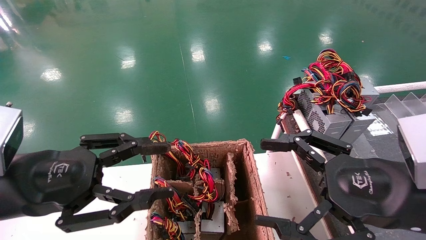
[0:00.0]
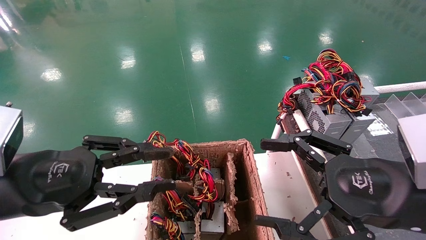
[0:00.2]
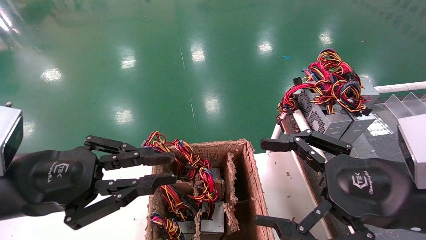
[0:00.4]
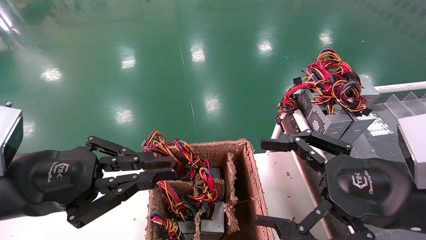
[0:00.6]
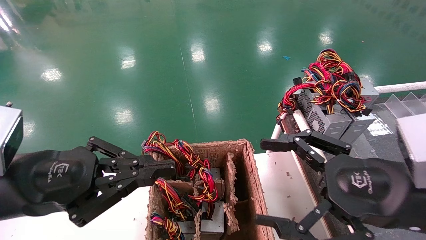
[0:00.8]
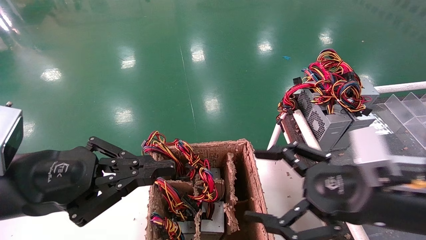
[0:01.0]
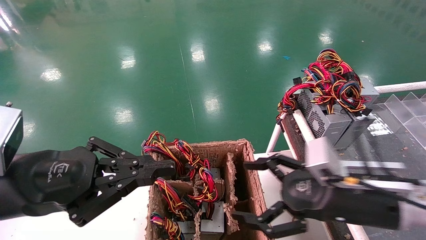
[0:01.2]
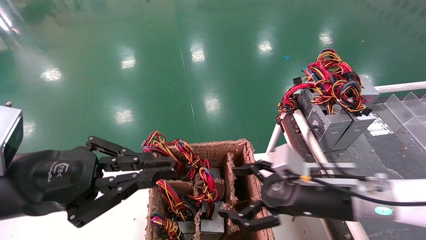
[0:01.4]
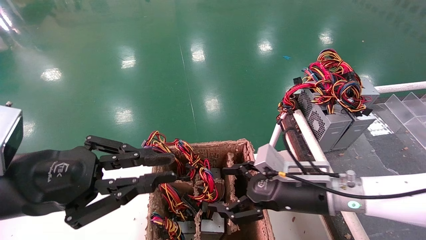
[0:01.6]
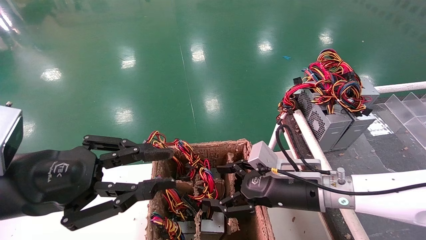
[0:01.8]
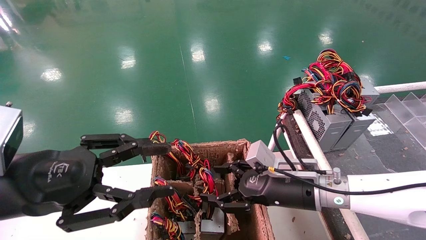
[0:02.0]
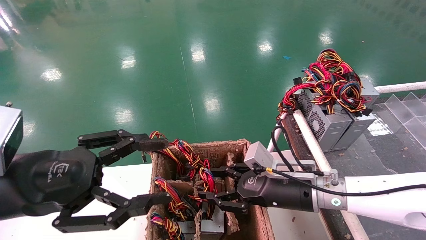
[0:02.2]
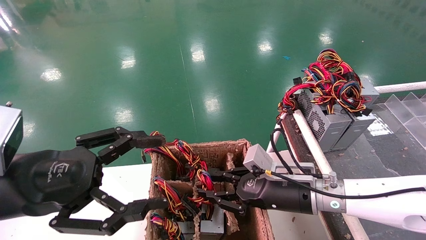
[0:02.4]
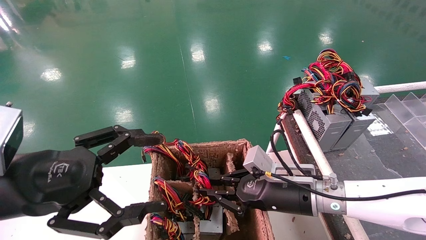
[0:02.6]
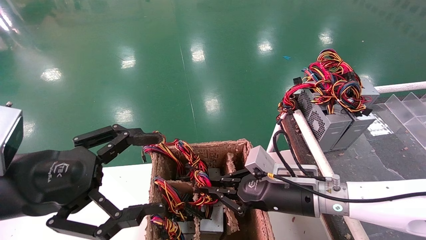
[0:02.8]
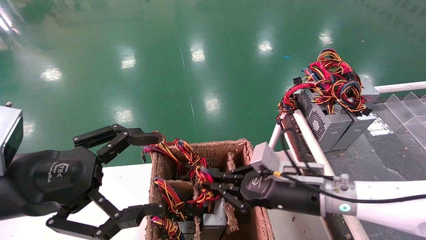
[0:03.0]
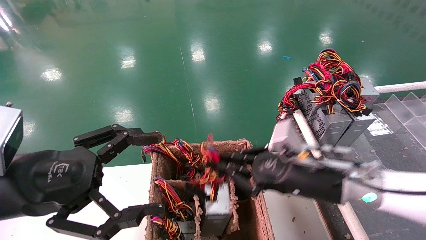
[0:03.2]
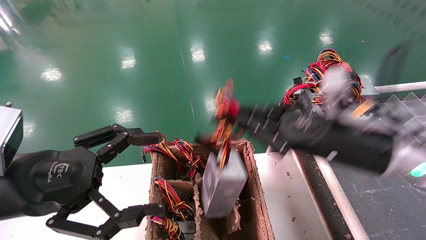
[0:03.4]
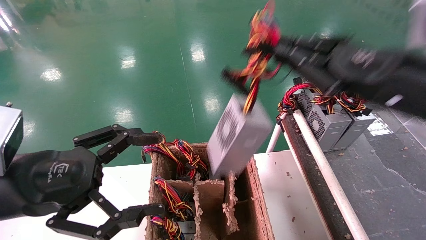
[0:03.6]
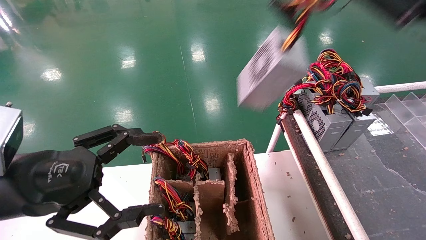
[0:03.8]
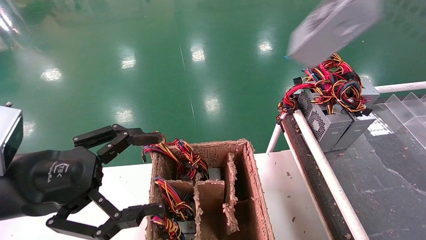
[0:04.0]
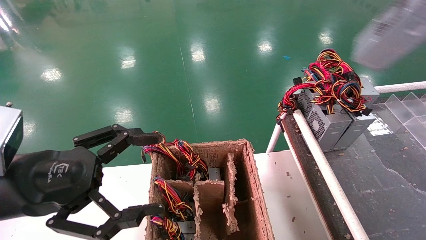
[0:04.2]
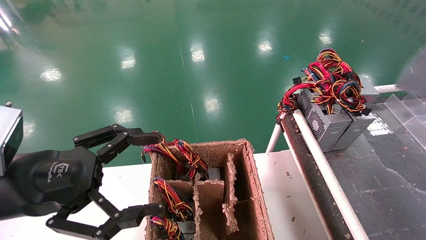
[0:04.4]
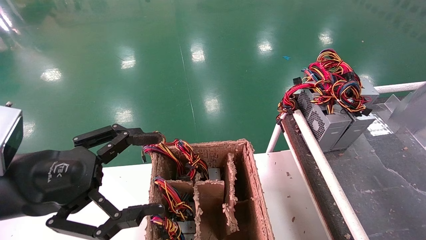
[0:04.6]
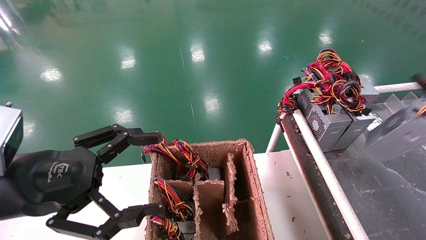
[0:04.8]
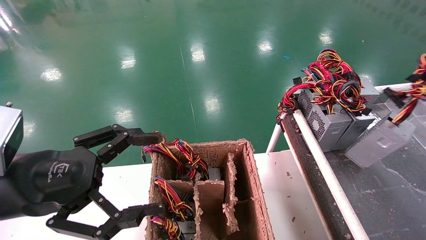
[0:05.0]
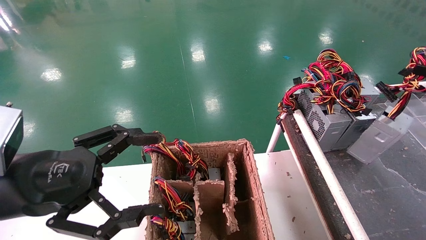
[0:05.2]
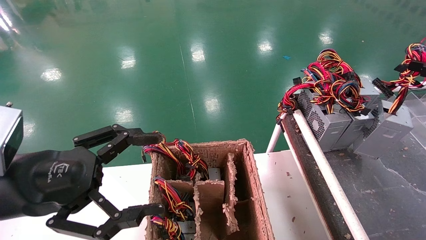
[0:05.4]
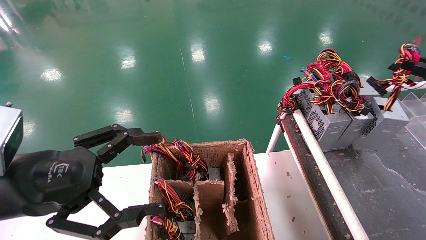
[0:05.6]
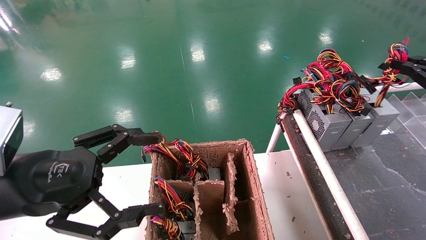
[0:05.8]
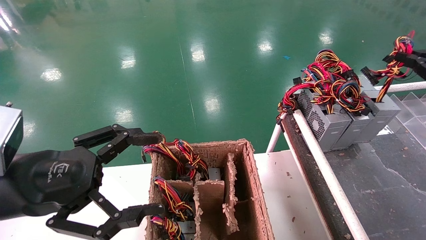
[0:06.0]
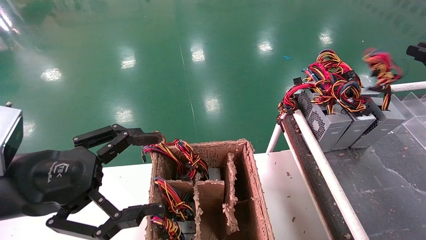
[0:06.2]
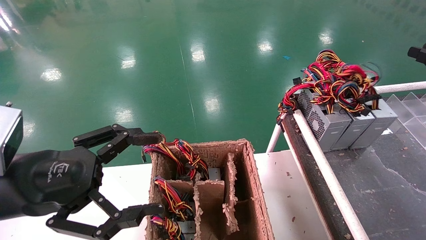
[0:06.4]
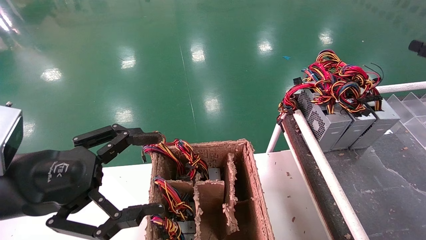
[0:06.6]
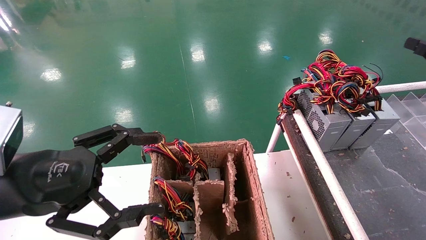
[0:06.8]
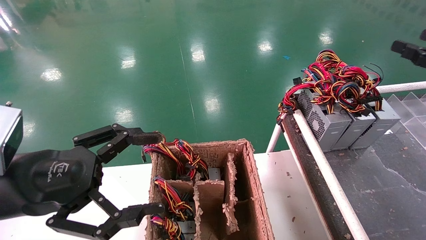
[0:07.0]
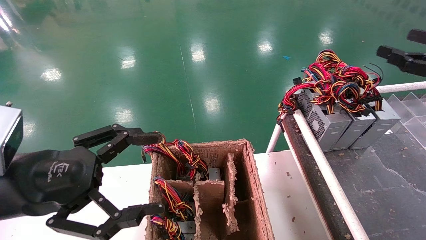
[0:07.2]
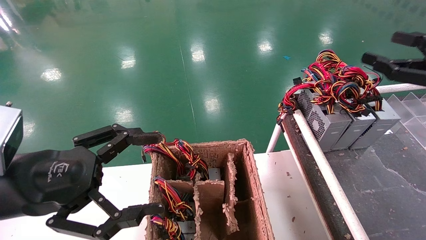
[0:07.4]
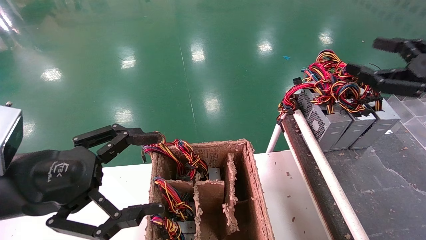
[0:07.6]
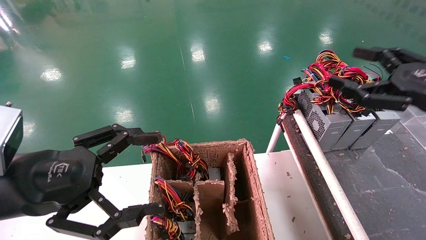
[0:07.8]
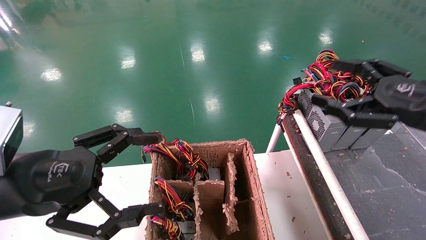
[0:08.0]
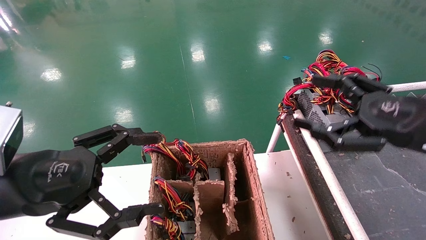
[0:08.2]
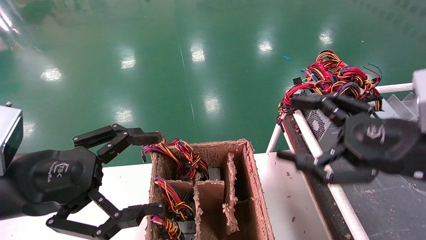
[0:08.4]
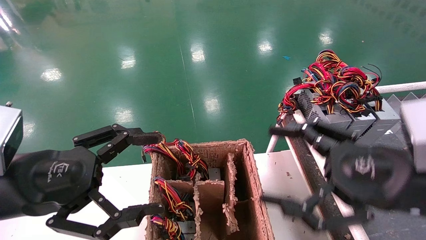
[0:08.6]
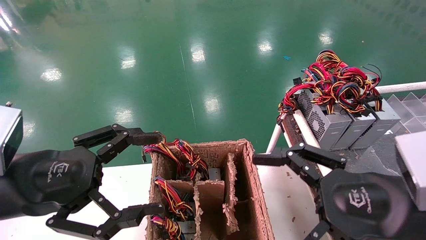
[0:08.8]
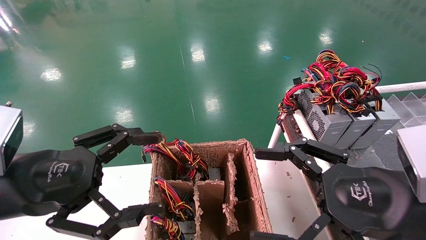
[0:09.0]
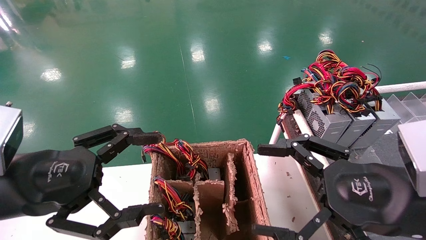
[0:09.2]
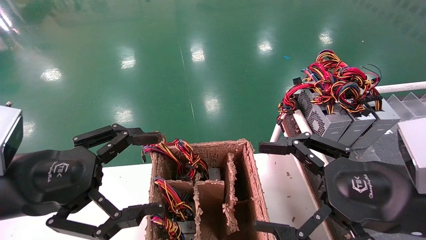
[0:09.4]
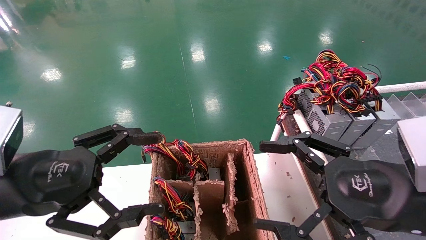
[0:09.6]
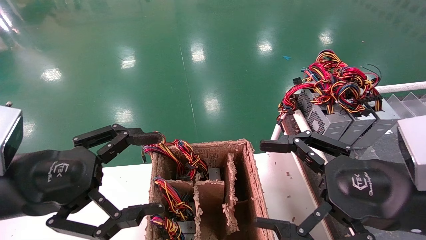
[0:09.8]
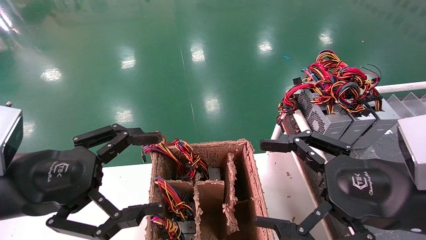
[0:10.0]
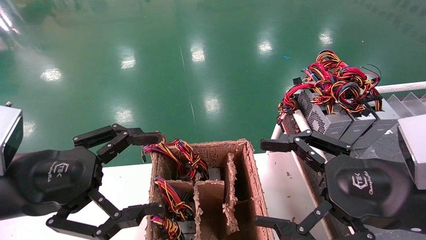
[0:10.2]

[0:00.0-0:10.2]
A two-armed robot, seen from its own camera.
Step, 0:01.2 to 0:02.6: Grab and lift the power supply from the large box.
Step, 0:02.8 to 0:06.2: Place the power supply on the operating table.
0:00.0 to 0:01.4: The right gripper shifts about 15 cm forward, downward and to the left. Meanwhile the left gripper closes.
0:01.4 to 0:03.0: The right gripper closes its fingers. Meanwhile the left gripper opens its fingers.
0:03.0 to 0:04.4: The right gripper is displaced to the right and upward by approximately 40 cm.
0:04.4 to 0:05.8: The right gripper is displaced forward and downward by some 15 cm.
0:05.8 to 0:07.2: The right gripper opens its fingers.
0:07.2 to 0:08.8: The right gripper heads to the left, backward and downward, covering about 25 cm.
0:08.8 to 0:10.2: Both grippers stay put.

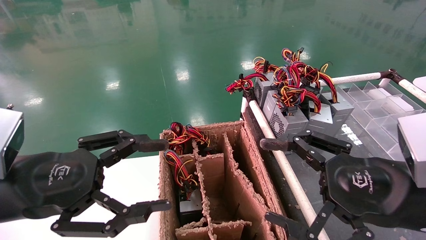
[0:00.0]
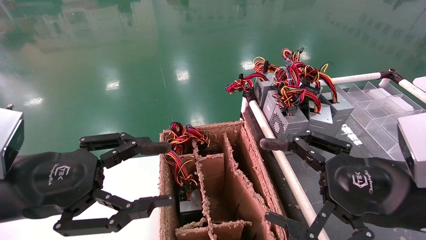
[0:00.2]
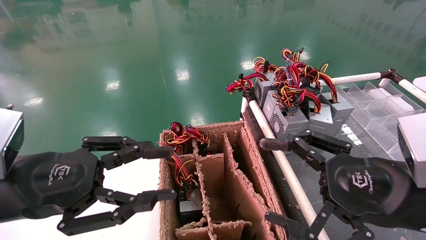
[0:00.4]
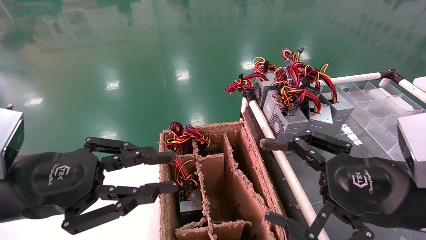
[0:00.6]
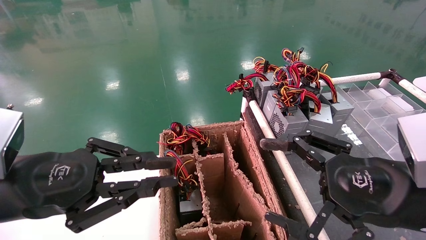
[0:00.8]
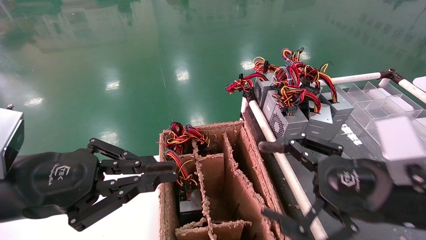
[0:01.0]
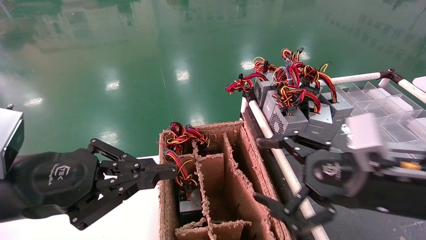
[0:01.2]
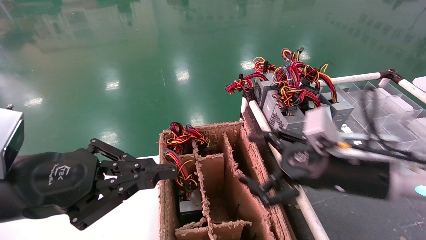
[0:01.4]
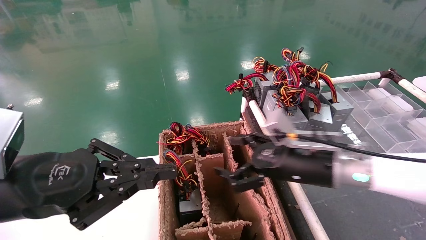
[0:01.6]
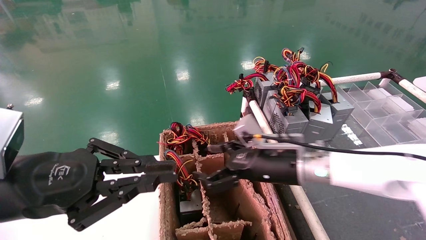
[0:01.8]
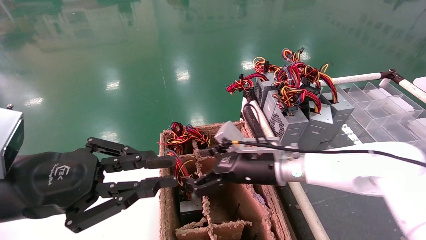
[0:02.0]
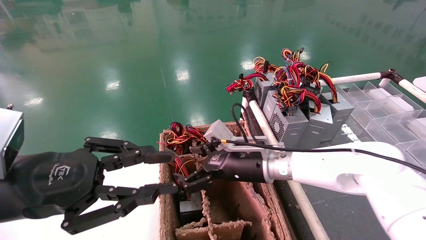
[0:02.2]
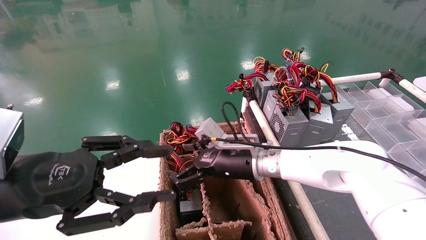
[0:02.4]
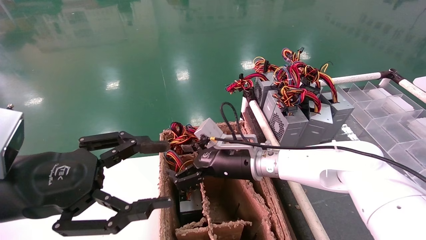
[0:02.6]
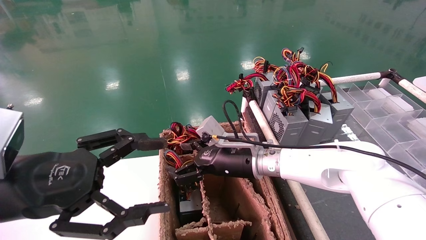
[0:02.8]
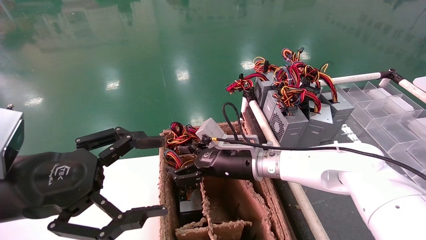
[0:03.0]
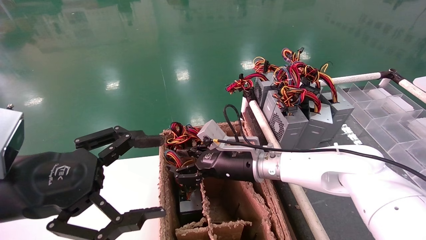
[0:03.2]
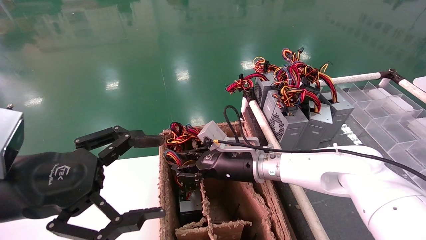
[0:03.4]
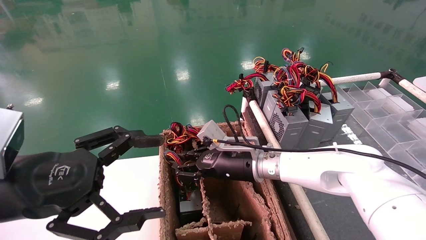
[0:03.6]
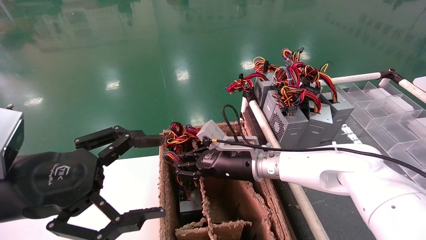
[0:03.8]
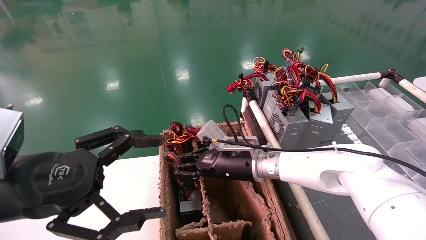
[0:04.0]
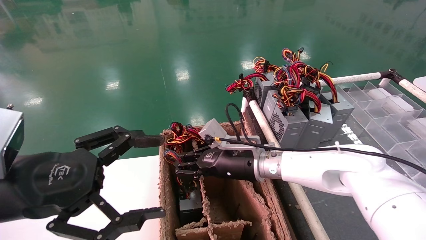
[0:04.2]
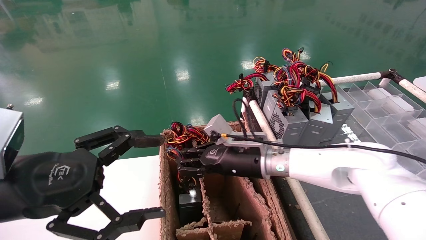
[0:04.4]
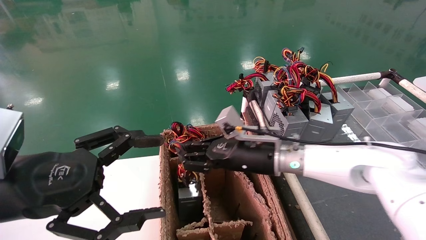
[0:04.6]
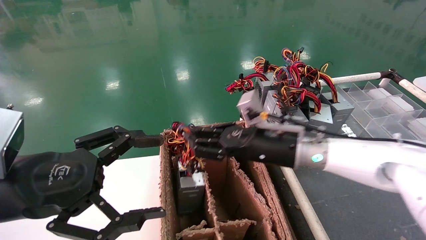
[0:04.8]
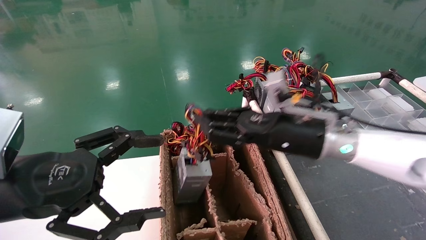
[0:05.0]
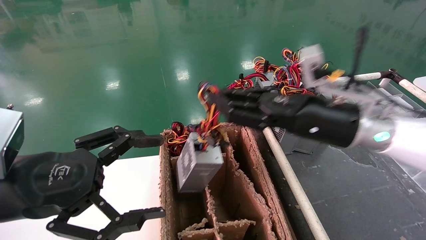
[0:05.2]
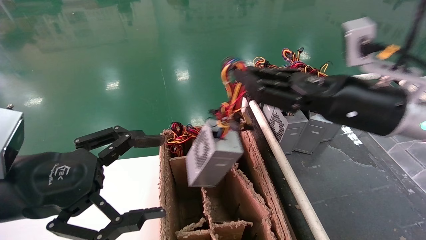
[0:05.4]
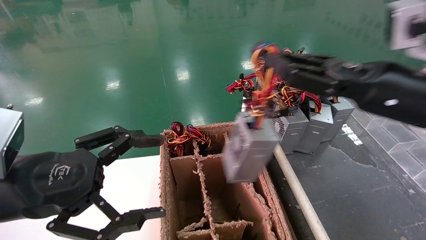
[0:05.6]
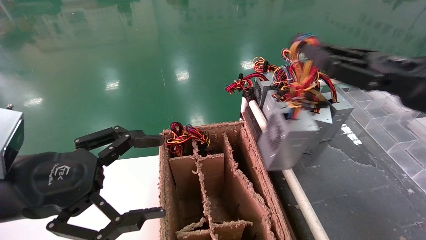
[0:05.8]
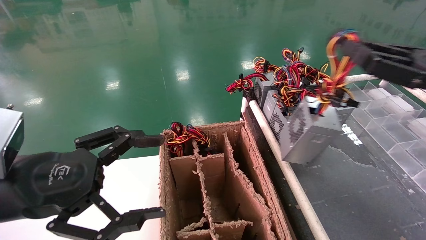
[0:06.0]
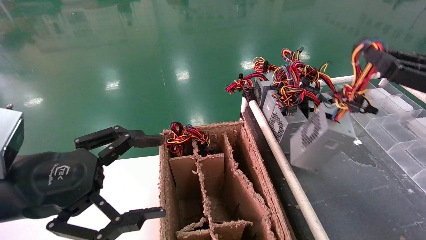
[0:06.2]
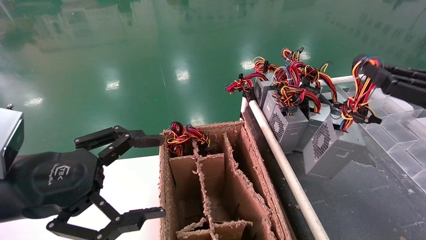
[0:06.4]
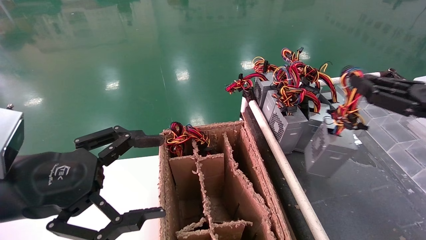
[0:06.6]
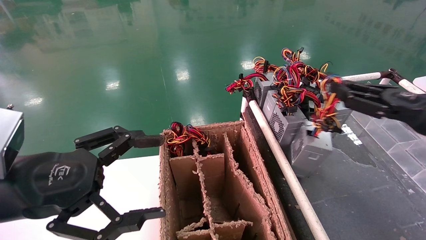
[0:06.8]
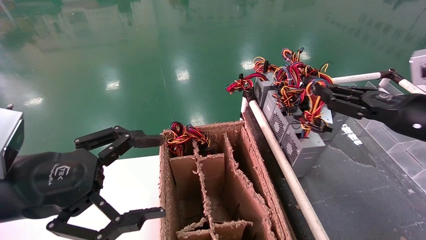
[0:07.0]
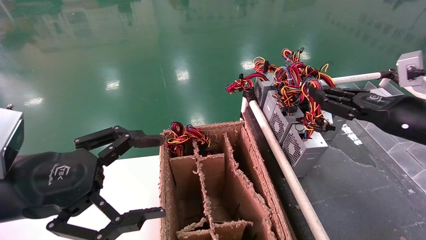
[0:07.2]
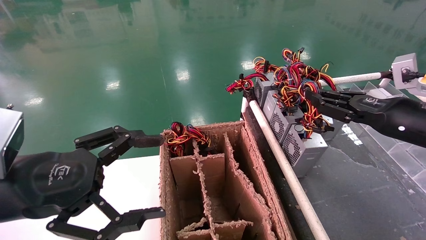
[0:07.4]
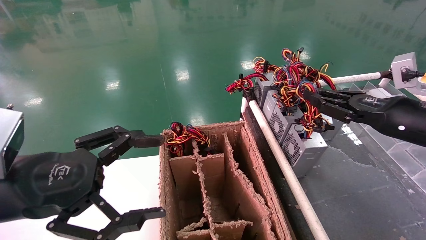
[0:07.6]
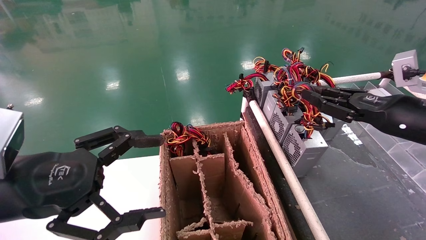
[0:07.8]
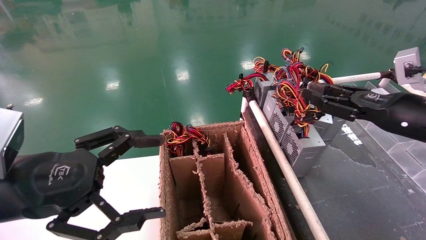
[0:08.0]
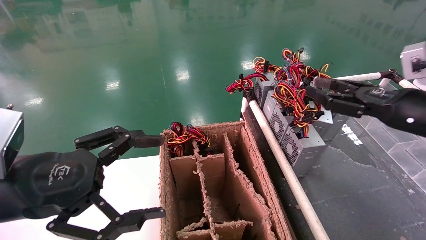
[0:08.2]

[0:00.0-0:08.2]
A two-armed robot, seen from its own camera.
Step, 0:01.4 to 0:04.0: Grab and lift the power supply from the large box.
Step, 0:04.2 to 0:07.8: Place the power supply on the operating table.
0:00.0 to 0:01.6: The left gripper closes up, while the right gripper shifts about 15 cm forward and to the left.
0:01.6 to 0:03.2: The left gripper opens its fingers; the right gripper heads to the left and forward, covering roughly 15 cm, and closes its fingers.
0:03.2 to 0:05.0: The right gripper travels to the right, upward and backward by some 15 cm, and closes up.
0:05.0 to 0:06.6: The right gripper goes about 25 cm to the right.
0:06.6 to 0:08.2: The right gripper moves roughly 5 cm.
